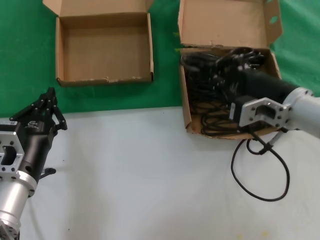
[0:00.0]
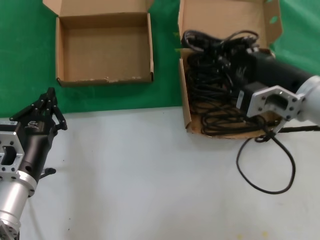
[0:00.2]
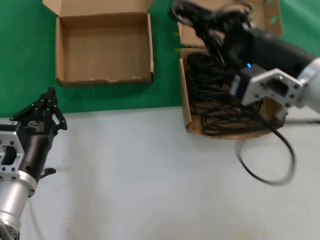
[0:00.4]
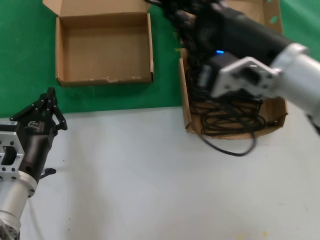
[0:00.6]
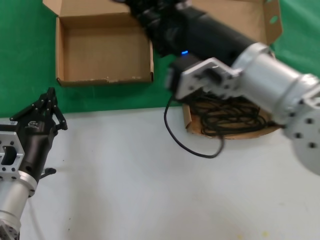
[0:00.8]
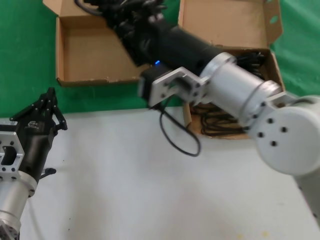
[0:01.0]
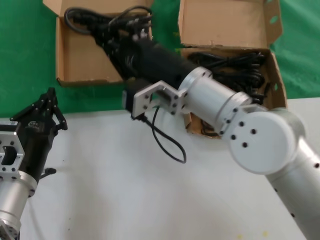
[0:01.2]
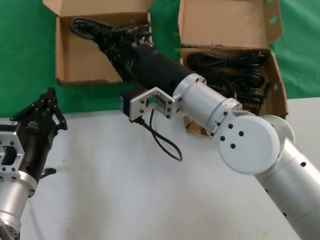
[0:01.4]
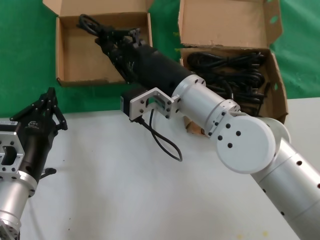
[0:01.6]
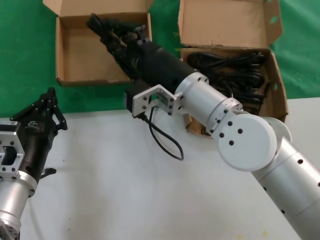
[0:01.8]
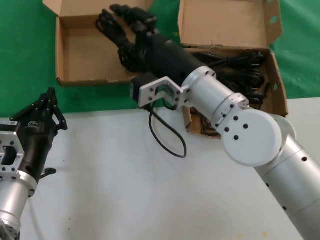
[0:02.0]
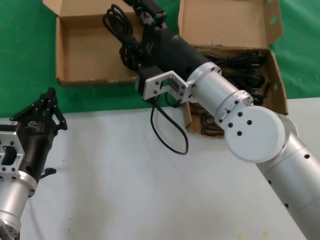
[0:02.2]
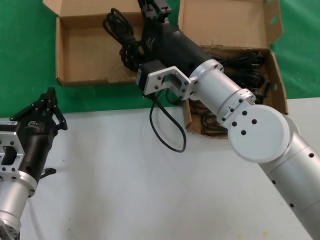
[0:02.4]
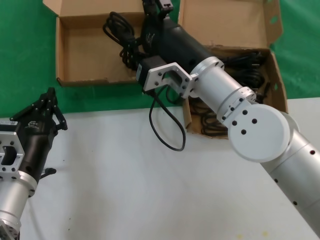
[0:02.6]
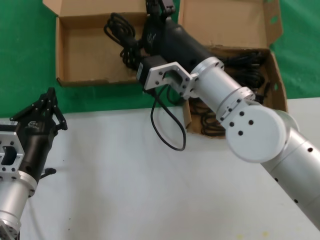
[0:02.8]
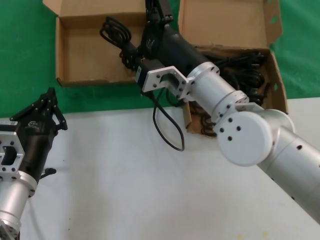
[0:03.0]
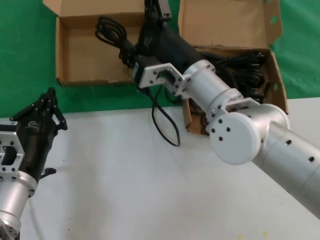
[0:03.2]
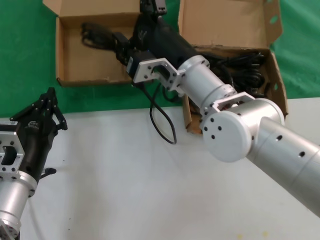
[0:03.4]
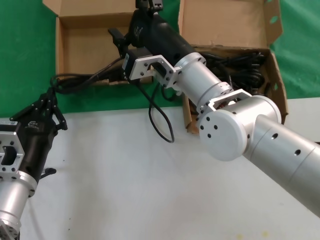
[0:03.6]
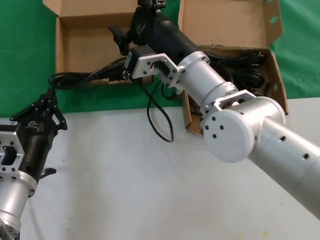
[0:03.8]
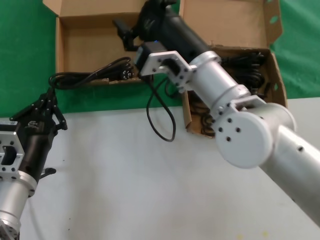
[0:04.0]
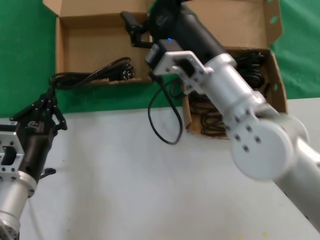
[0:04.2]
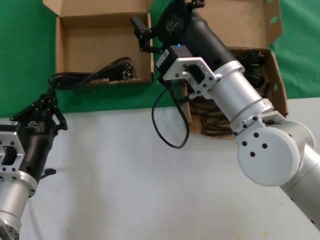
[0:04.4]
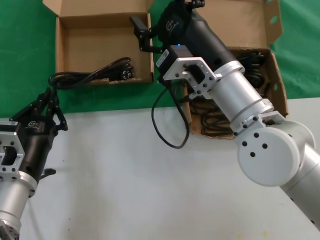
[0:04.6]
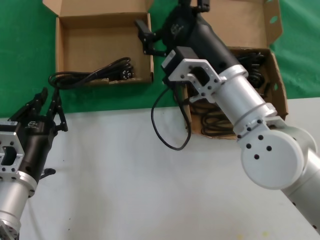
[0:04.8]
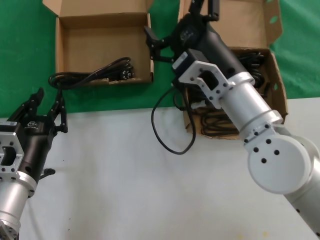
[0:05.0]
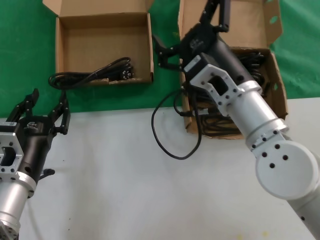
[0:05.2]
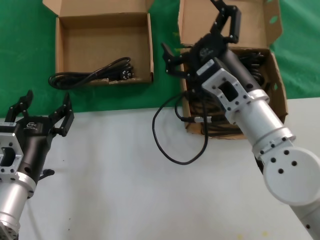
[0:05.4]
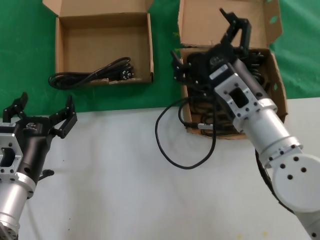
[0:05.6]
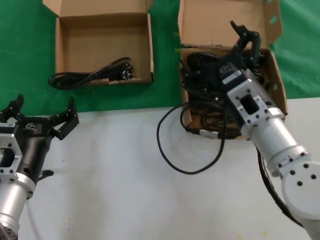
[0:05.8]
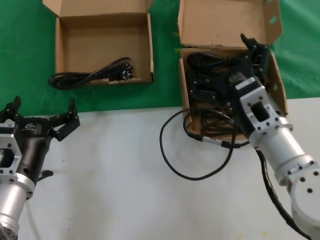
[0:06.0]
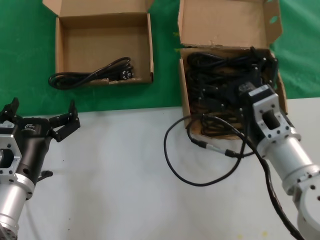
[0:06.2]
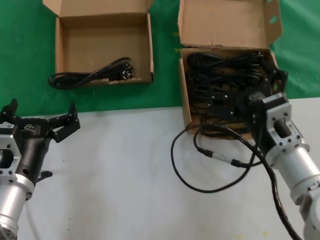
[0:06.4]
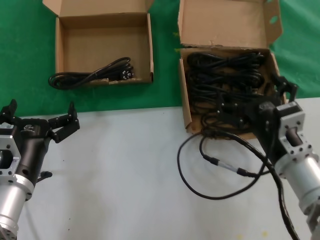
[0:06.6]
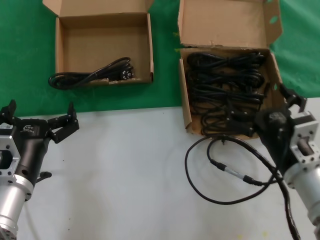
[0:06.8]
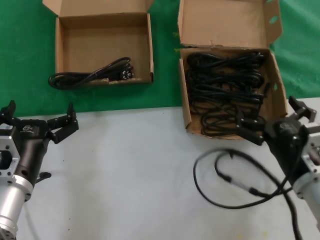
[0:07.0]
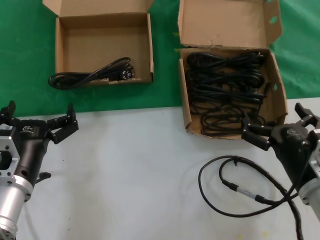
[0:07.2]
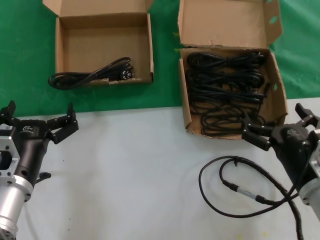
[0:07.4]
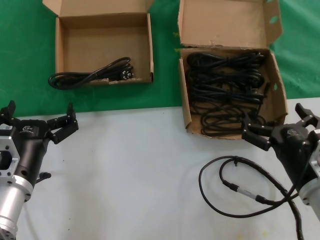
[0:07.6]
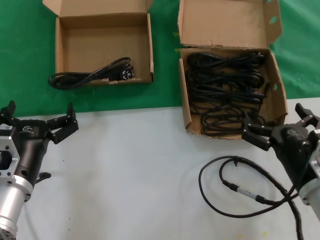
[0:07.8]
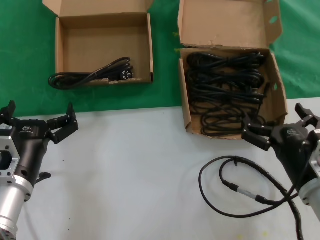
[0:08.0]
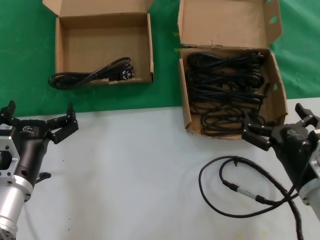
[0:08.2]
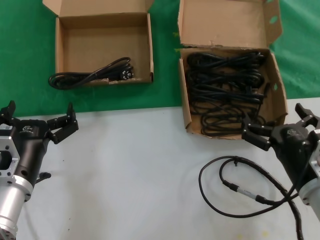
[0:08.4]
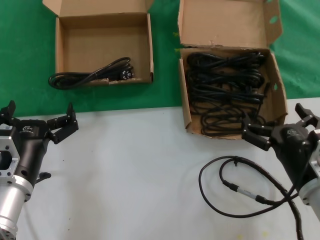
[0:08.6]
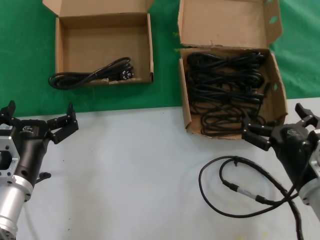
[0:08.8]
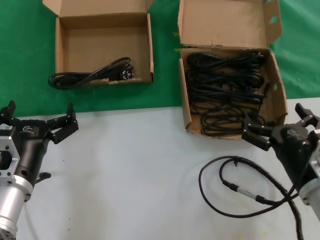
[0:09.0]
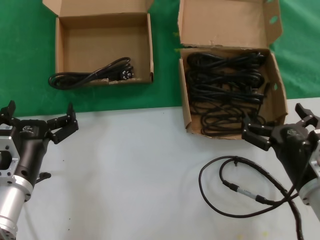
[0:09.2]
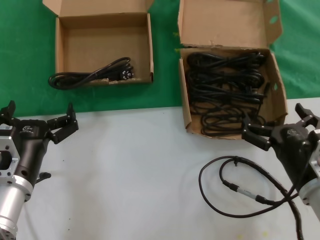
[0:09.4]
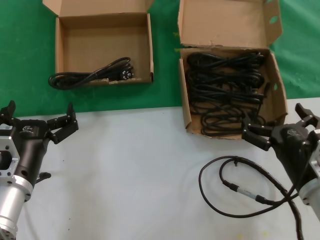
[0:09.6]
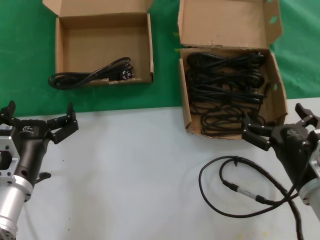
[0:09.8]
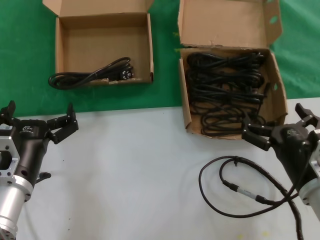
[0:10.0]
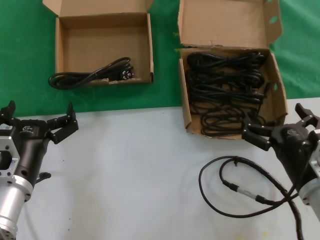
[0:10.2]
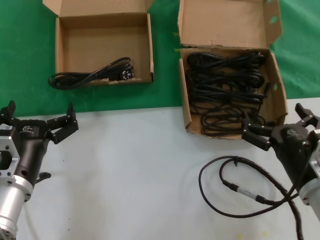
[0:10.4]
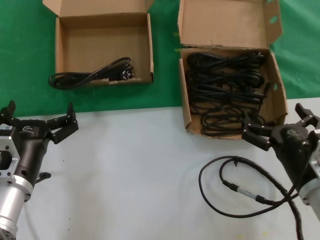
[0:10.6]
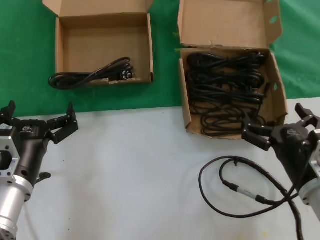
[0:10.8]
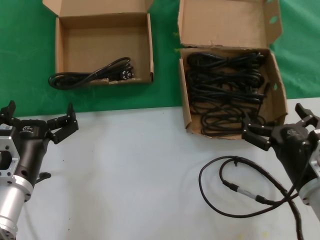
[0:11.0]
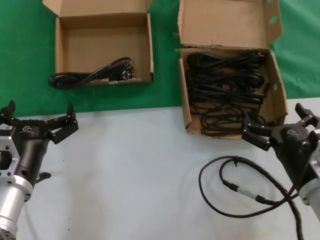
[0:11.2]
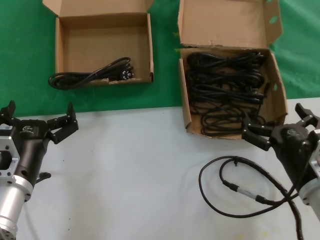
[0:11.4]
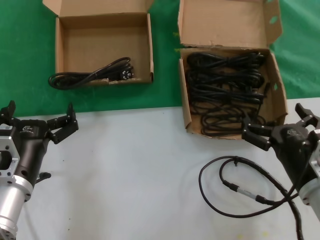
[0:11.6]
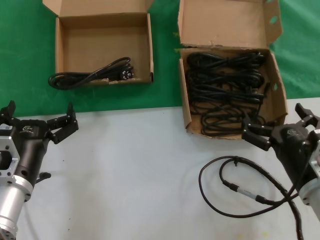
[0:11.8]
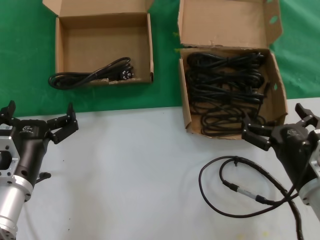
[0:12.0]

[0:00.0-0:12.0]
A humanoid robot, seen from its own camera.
Task of the whole recording: take the parts from the box containing them and put them into an empty box.
Step, 0:00.0 to 0:03.6: Place the data cable in the another box.
0:00.0 to 0:01.6: The right hand is displaced to the left by roughly 15 cm.
0:03.0 to 0:04.4: The hands make only small movements.
0:04.4 to 0:06.0: The right hand goes roughly 10 cm downward and to the right.
0:06.0 to 0:07.6: The right hand moves to the right, downward and backward, about 15 cm.
0:07.6 to 0:12.0: Neither hand changes place.

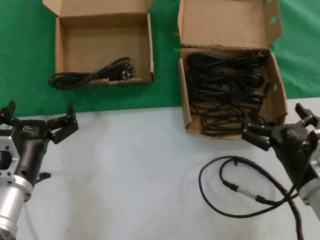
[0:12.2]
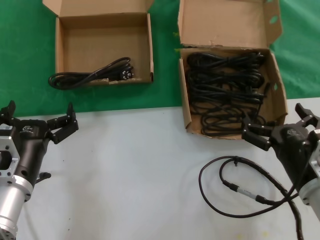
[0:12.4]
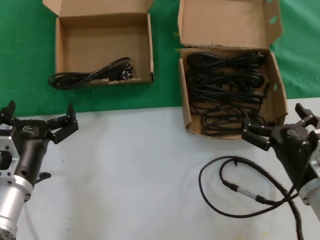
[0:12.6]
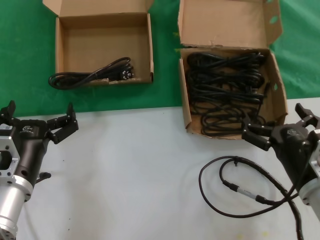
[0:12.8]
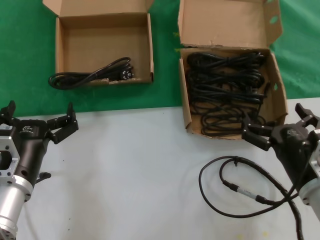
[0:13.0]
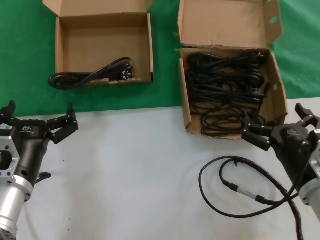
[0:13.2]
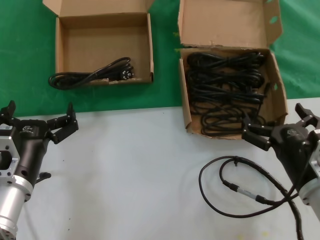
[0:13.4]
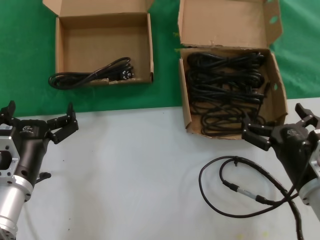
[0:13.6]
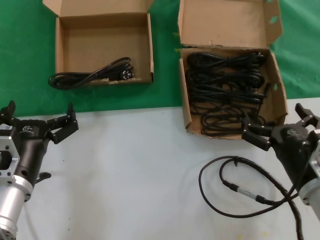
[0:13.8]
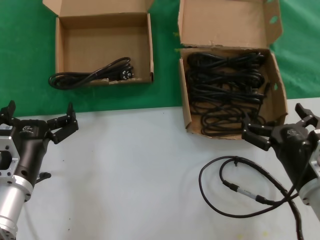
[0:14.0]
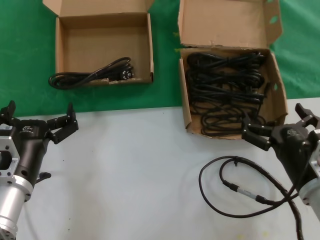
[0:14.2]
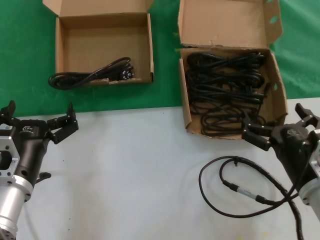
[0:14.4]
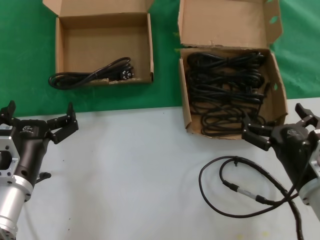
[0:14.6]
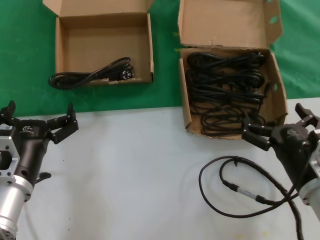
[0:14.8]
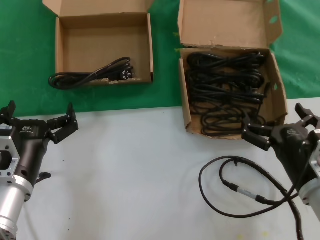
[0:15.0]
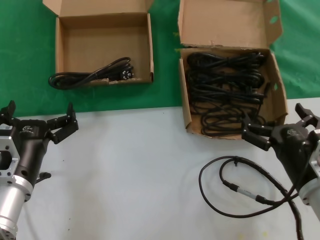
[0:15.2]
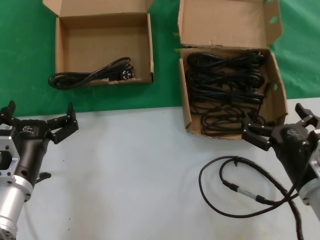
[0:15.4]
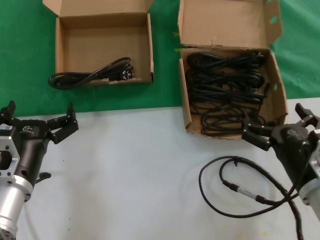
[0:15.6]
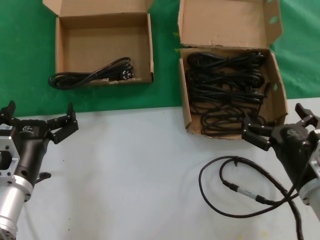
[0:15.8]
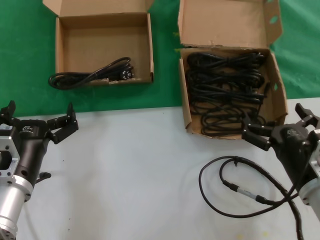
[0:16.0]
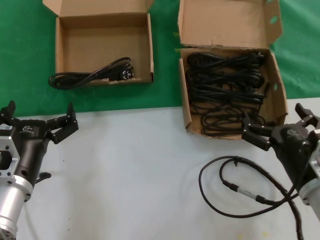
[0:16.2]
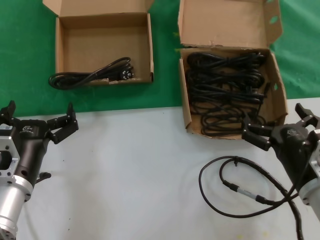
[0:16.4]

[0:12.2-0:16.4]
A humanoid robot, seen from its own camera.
Task of the whole recording: take the parts from the box containing them and put them into an empty box.
0:12.2 to 0:16.4: Neither hand changes place.
